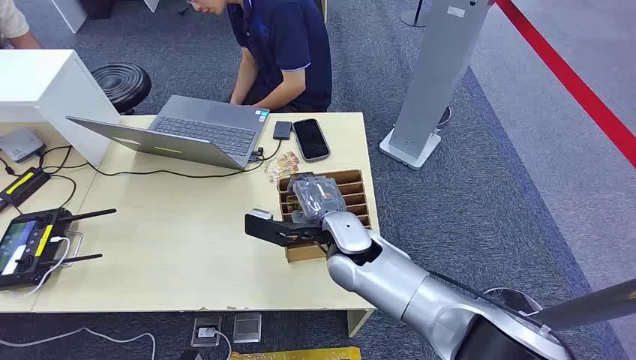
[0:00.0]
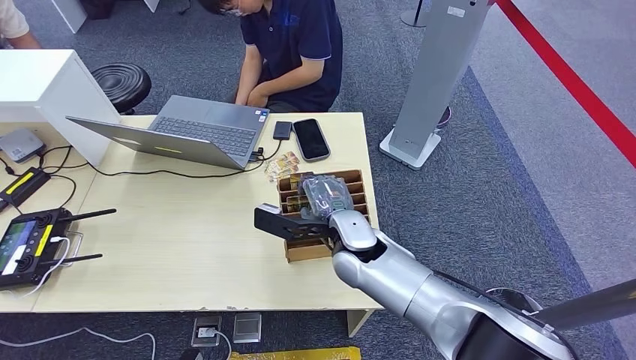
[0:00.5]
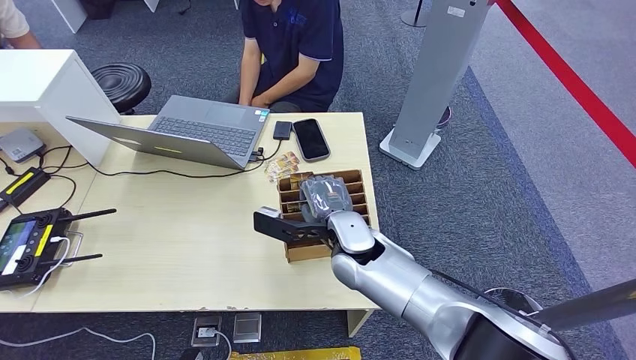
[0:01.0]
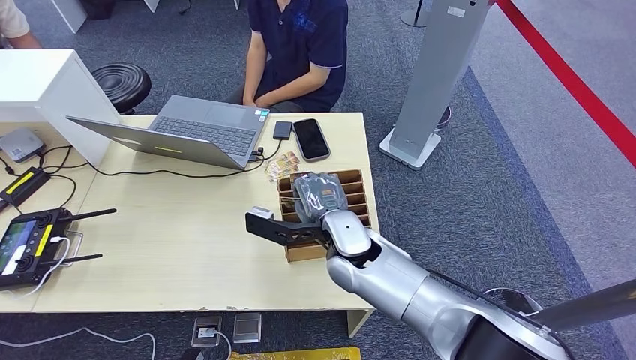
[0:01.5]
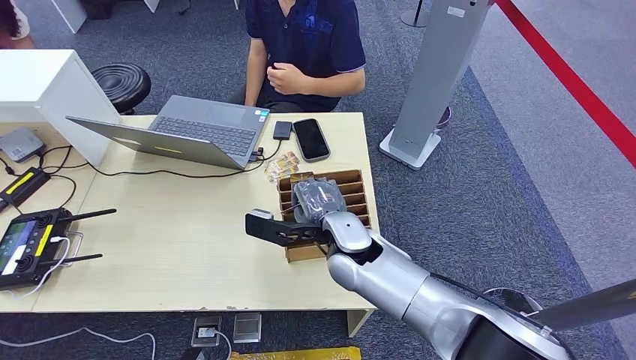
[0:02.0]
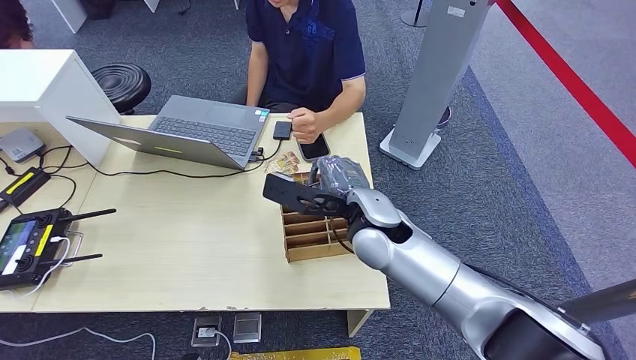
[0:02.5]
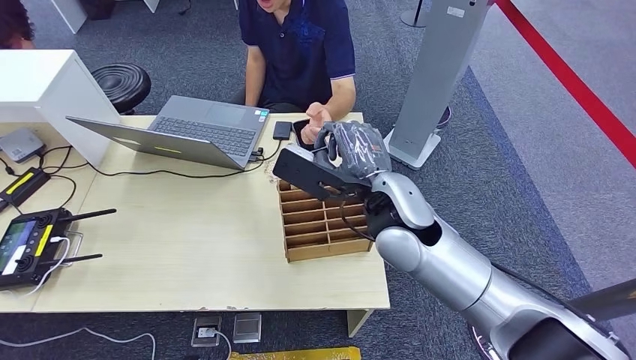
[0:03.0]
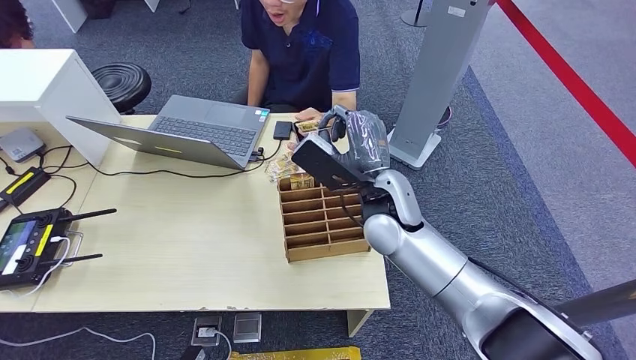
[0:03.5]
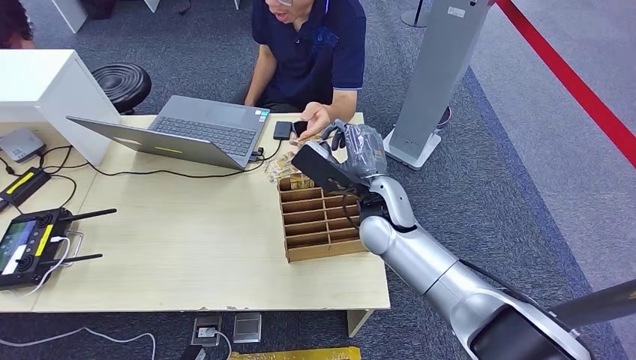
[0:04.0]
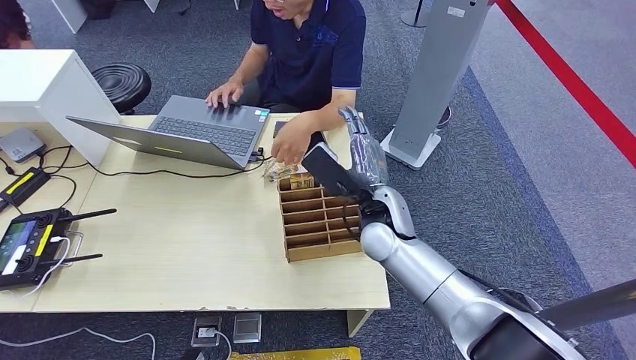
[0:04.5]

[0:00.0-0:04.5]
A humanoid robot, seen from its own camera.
Task of the whole recording: Pick up the card and hand it over to the target person.
Step, 0:00.0 to 0:02.5: Pick up the key card from the card box.
Step, 0:03.0 to 0:04.0: Hand the key card to the target.
0:02.0 to 0:04.5: The right hand is displaced to the right by about 5 cm, and moves about 10 cm upward and comes back.
